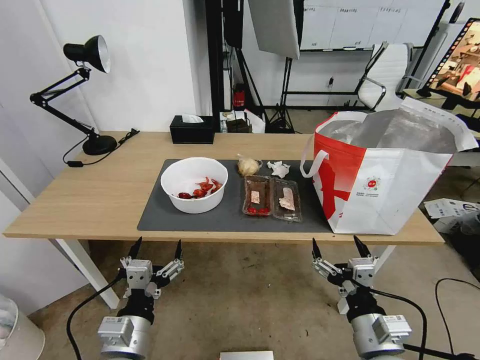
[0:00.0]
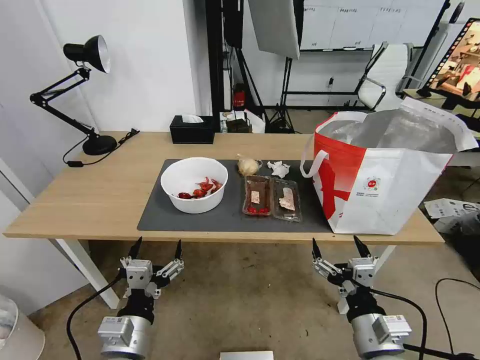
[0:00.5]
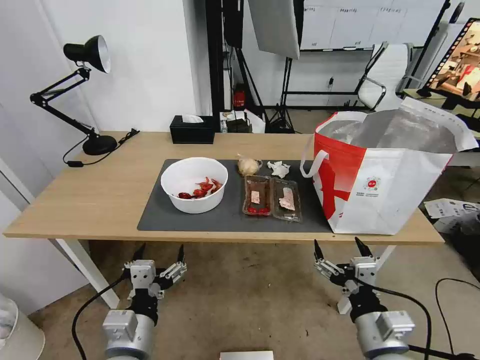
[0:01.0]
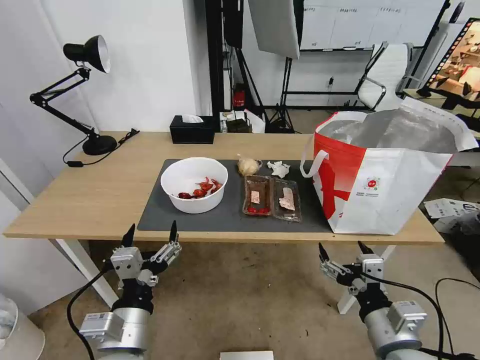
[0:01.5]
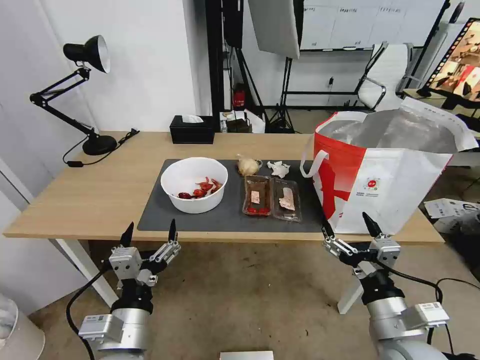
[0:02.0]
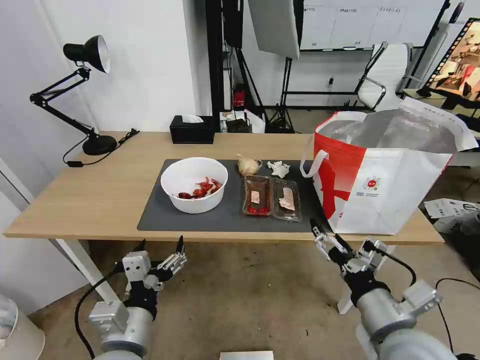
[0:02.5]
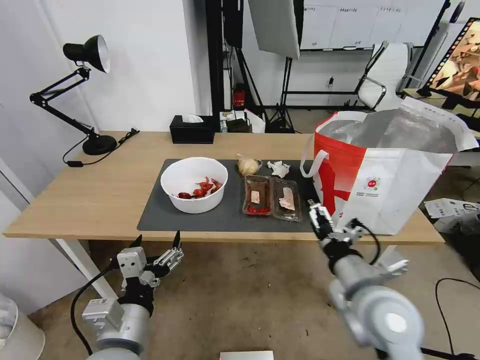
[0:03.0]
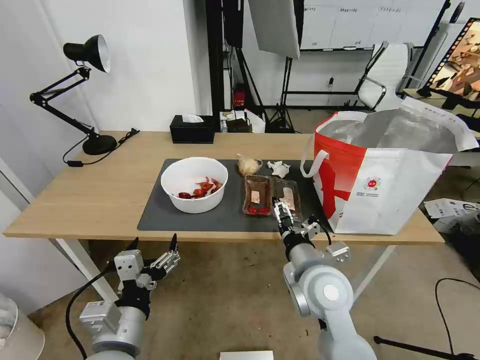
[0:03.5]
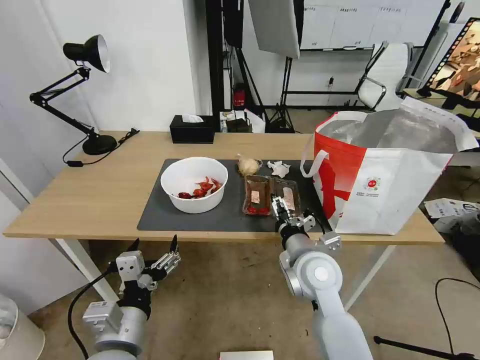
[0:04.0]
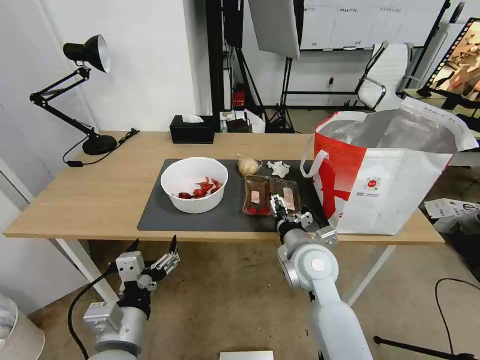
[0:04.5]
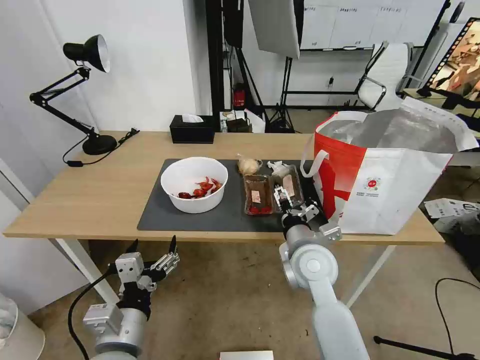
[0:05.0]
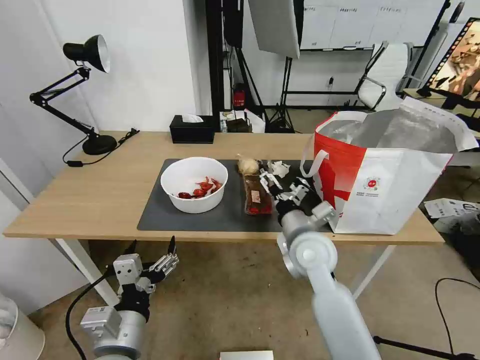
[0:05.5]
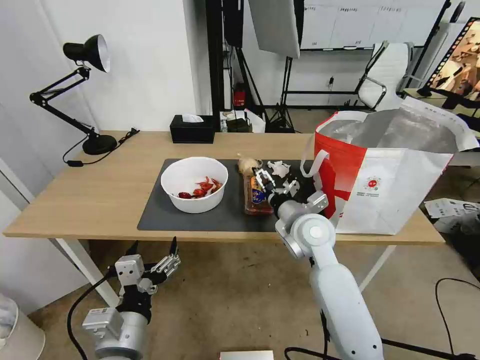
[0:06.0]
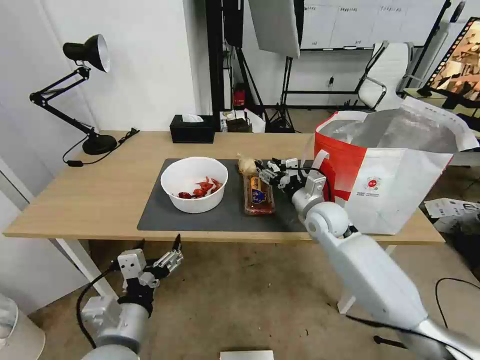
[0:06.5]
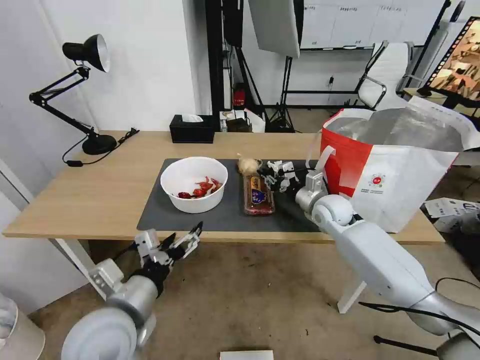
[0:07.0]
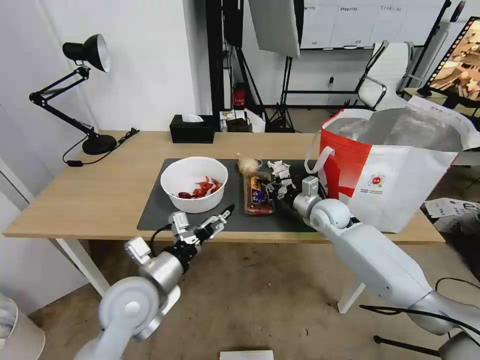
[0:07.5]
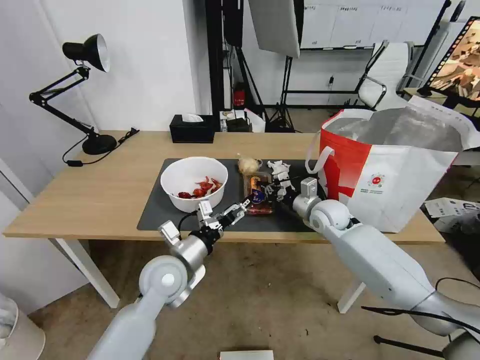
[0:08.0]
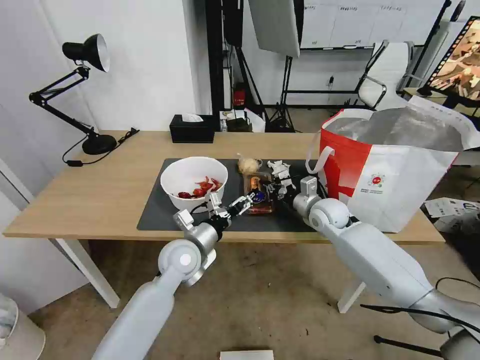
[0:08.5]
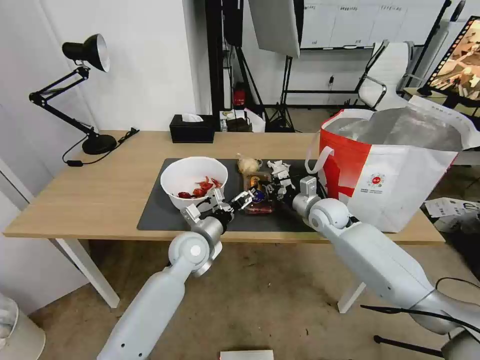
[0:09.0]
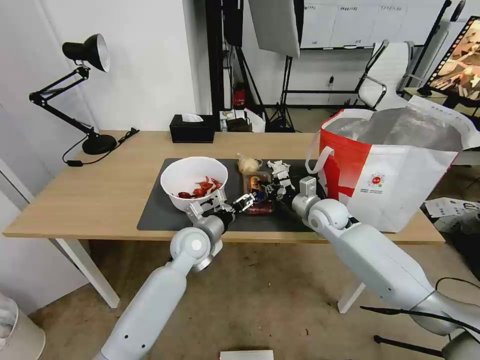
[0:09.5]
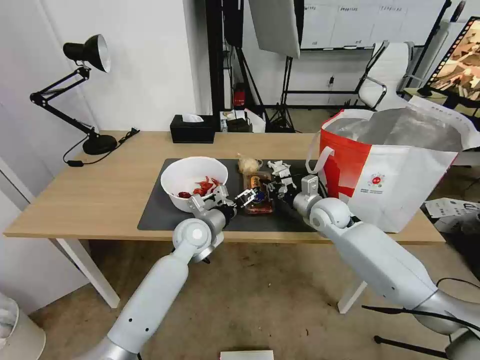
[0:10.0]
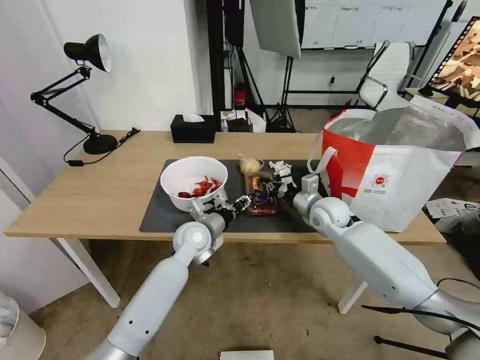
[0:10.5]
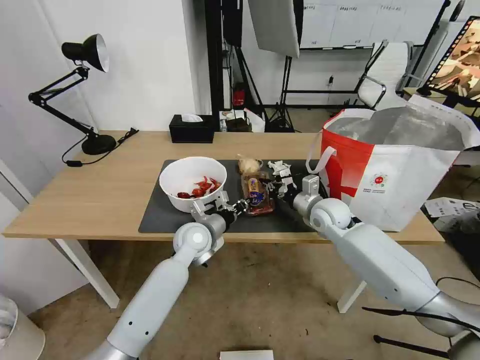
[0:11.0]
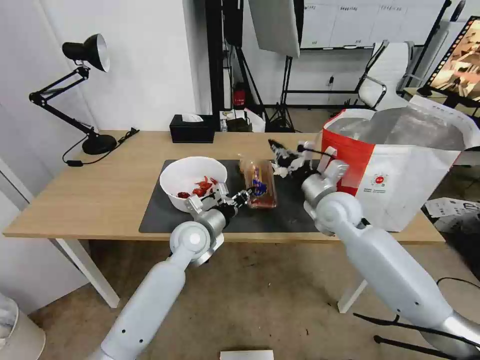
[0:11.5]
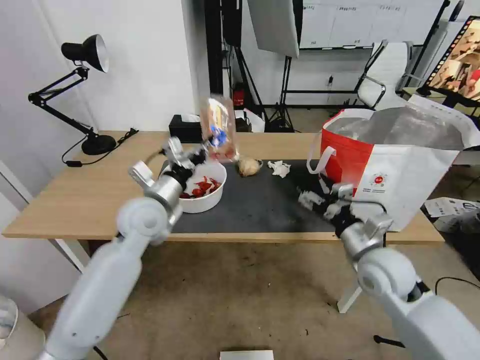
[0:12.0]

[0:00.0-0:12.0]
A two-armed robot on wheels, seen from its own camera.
Task of the whole recording: Pick up the trash from the table and place it into the takeout bag.
0:02.0 to 0:04.0: The right gripper moves forward and to the left, some 20 cm.
0:04.0 to 0:06.0: The right gripper shifts approximately 10 cm forward.
0:06.0 to 0:08.0: The left gripper goes approximately 20 cm forward. The right gripper shifts some 15 cm forward, to the right and downward, and closes up.
0:08.0 to 0:10.0: The left gripper heads forward, covering approximately 10 cm.
0:10.0 to 0:12.0: The right gripper moves backward, roughly 15 cm, and opens its fingers. The left gripper shifts some 15 cm upward and to the left, and closes.

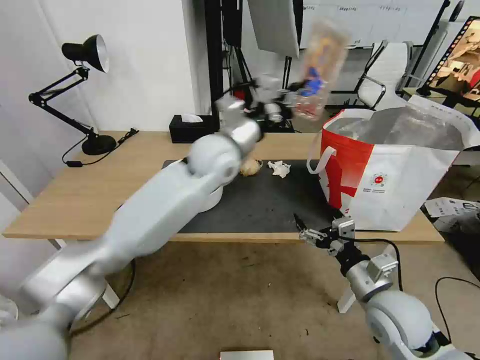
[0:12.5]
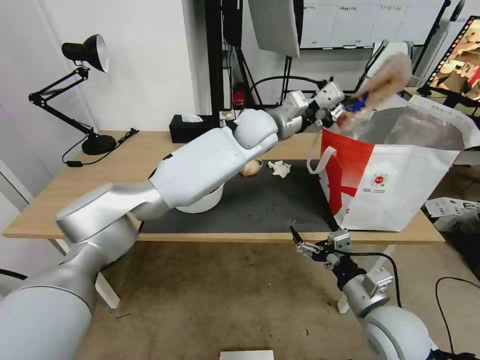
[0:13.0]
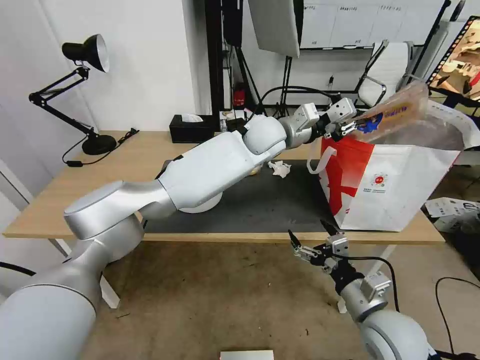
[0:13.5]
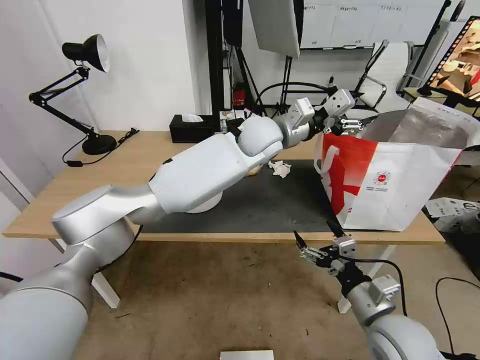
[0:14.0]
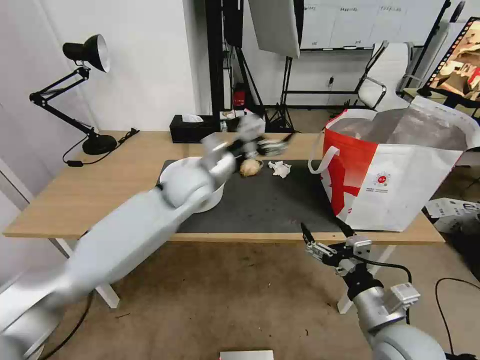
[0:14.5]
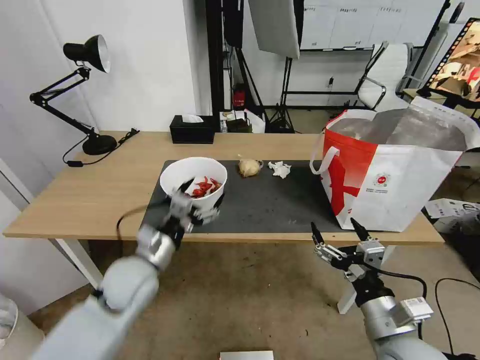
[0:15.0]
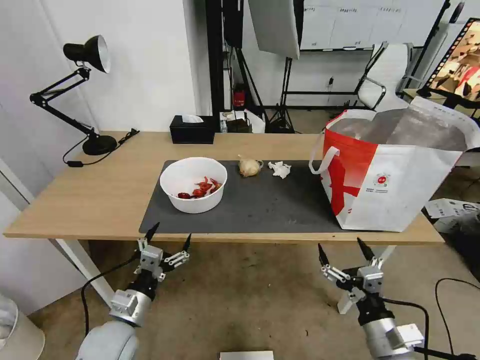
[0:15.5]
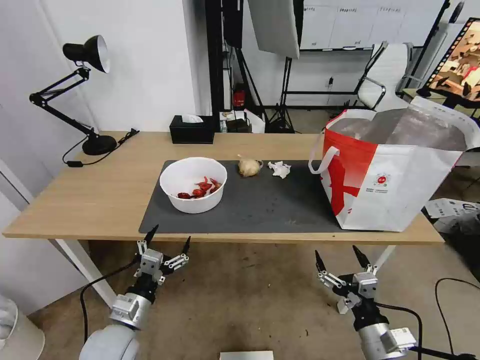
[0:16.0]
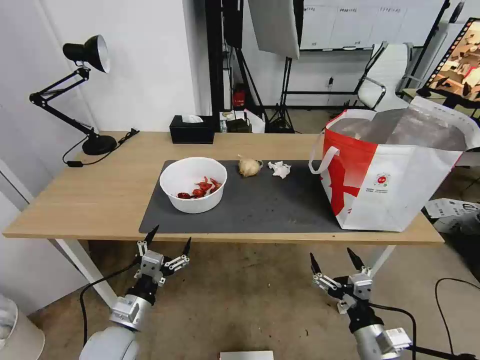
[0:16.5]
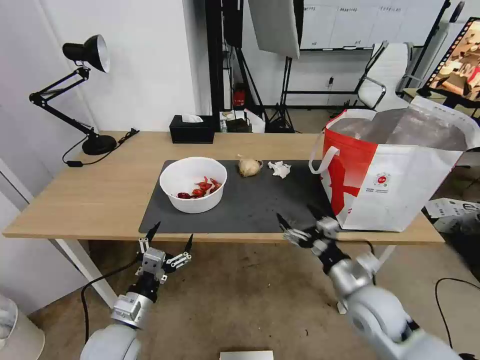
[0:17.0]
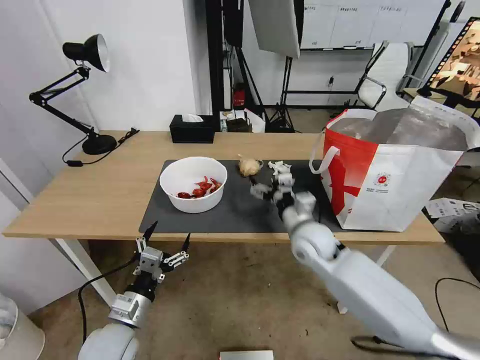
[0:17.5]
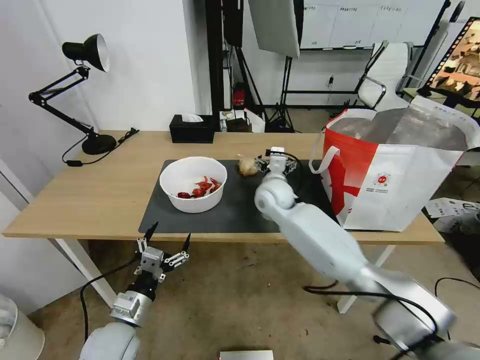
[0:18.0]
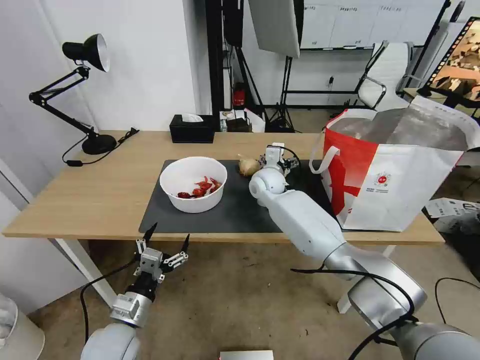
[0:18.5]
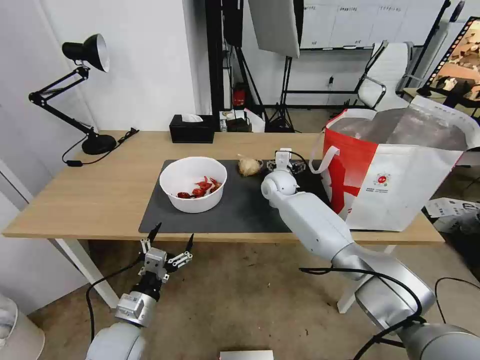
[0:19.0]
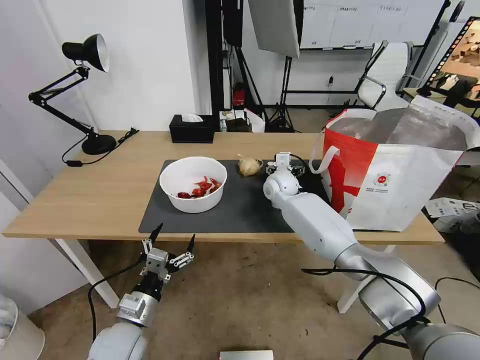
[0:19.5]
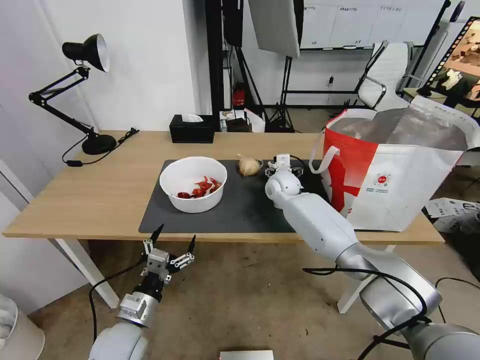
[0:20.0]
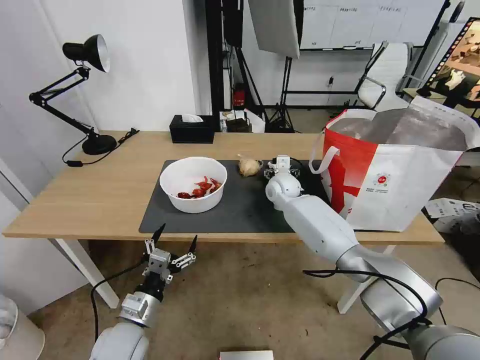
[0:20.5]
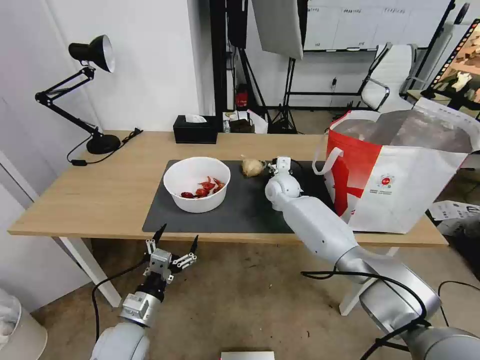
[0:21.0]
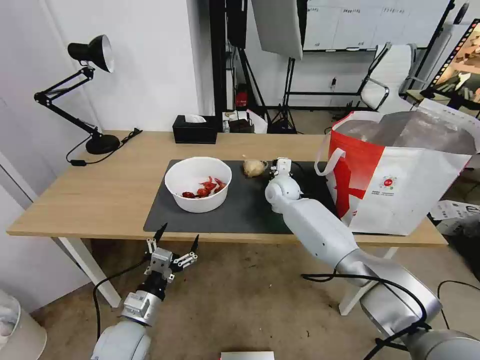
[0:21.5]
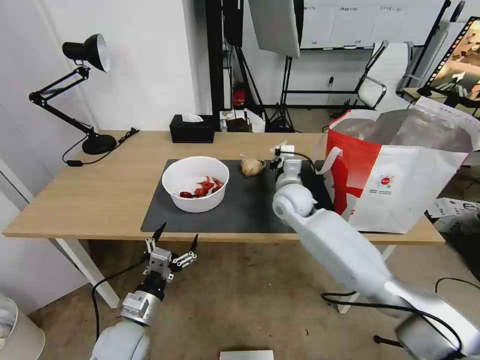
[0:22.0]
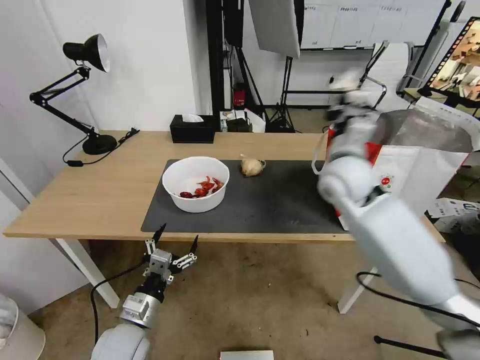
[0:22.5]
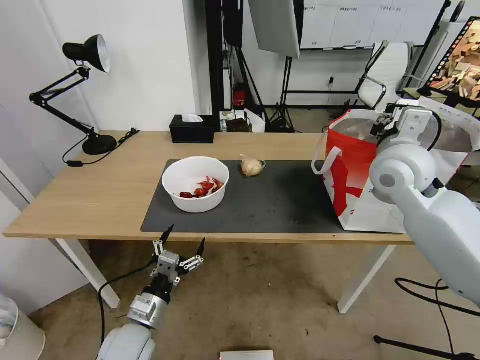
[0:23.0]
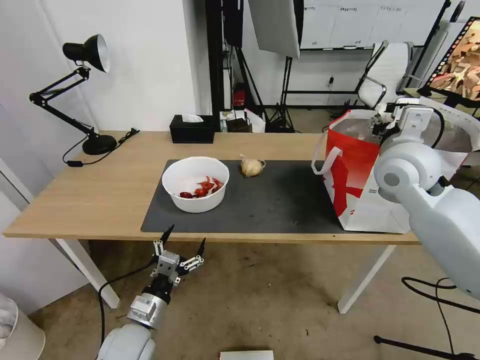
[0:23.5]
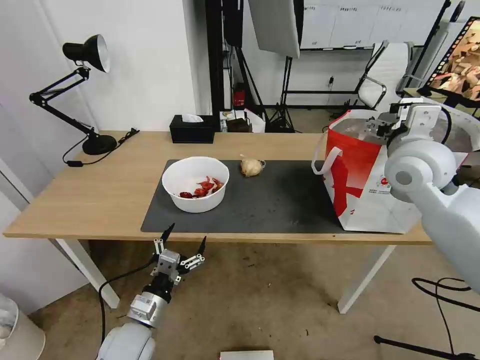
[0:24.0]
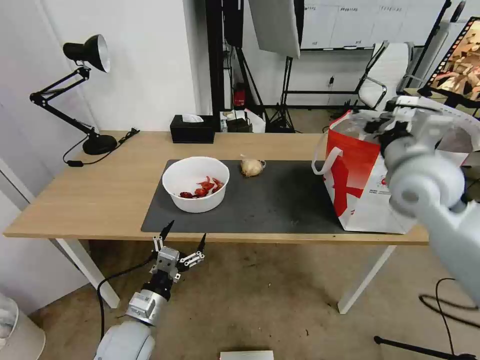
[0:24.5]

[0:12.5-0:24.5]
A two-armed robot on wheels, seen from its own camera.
Task of the whole recording: Pick up the trash from the table and place it into the takeout bag.
0:12.5 to 0:14.5: The right gripper travels backward by roughly 5 cm; the left gripper reaches some 10 cm to the right, then returns, and opens its fingers.
0:14.5 to 0:16.5: The left gripper moves backward, downward and to the left, some 40 cm, while the right gripper travels downward by roughly 10 cm.
0:16.5 to 0:18.5: The right gripper shifts some 50 cm forward and to the left.
0:18.5 to 0:20.5: The right gripper shifts by roughly 5 cm.
0:20.5 to 0:22.5: The right gripper travels upward, backward and to the right by roughly 25 cm, and closes up.
0:22.5 to 0:24.5: The right gripper heads to the right and backward, covering roughly 10 cm, and opens.

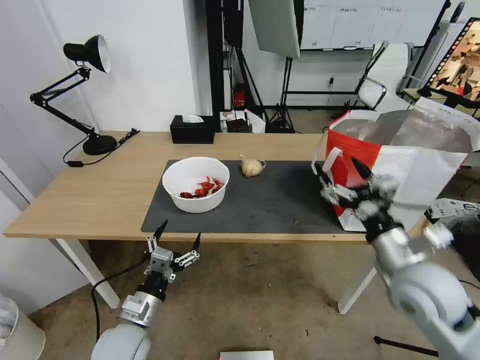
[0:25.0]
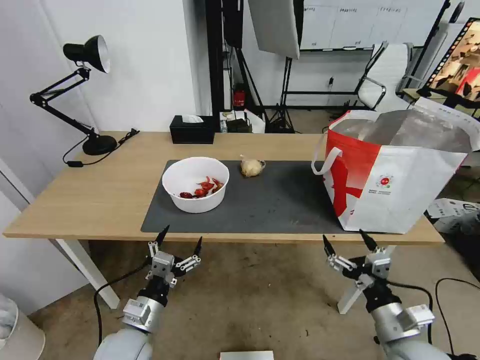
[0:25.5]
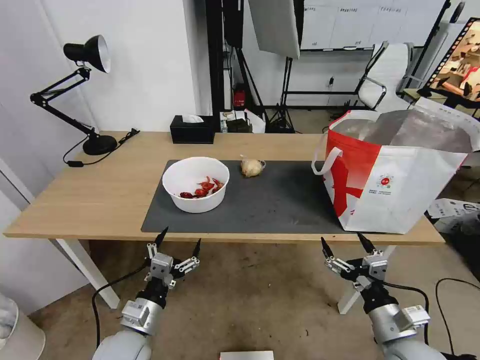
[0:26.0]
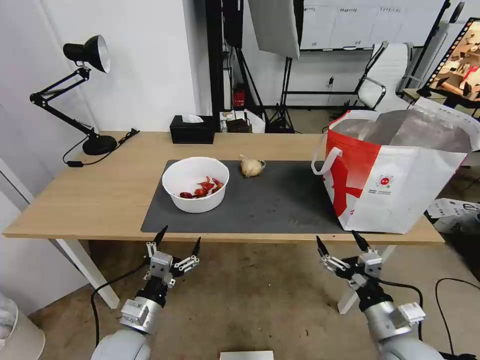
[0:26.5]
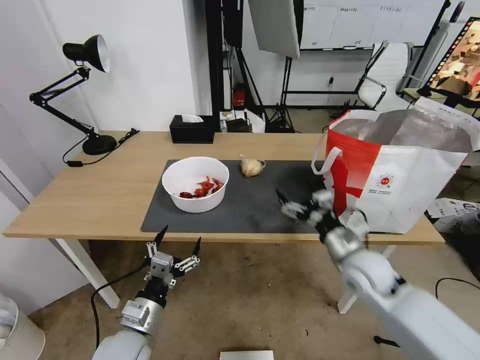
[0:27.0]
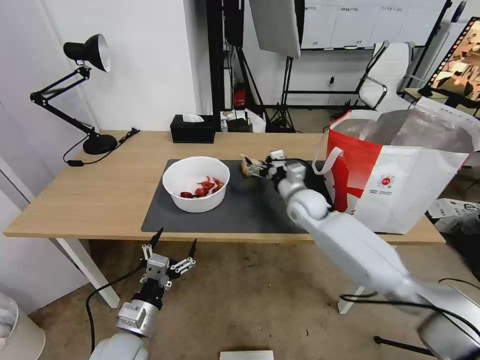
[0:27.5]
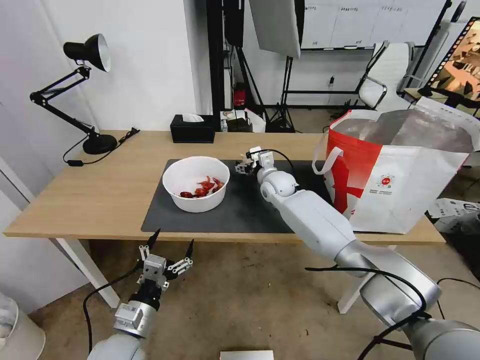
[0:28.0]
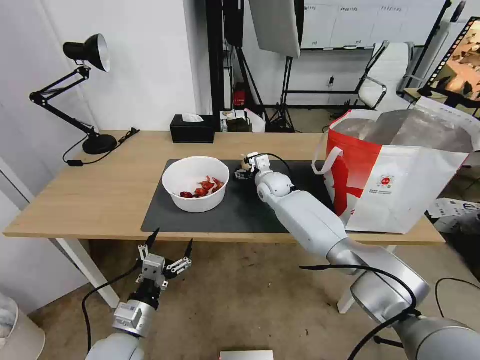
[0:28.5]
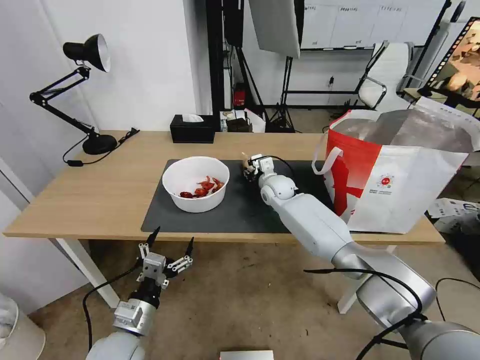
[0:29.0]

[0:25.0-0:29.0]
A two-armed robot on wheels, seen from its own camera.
Task of the whole recording: Pick up the trash from the table and place it into the takeout bag.
0:25.0 to 0:27.0: The right gripper is displaced downward by about 10 cm, and goes backward and returns, some 10 cm each way.
0:27.0 to 0:29.0: The right gripper travels forward and to the left by about 30 cm, and closes its fingers.
